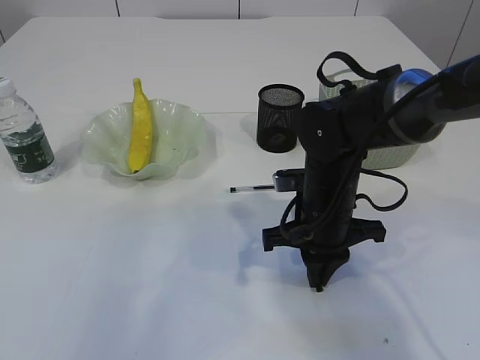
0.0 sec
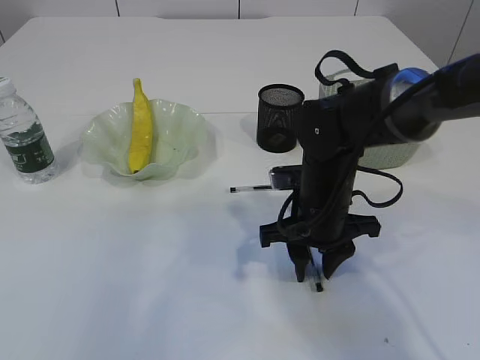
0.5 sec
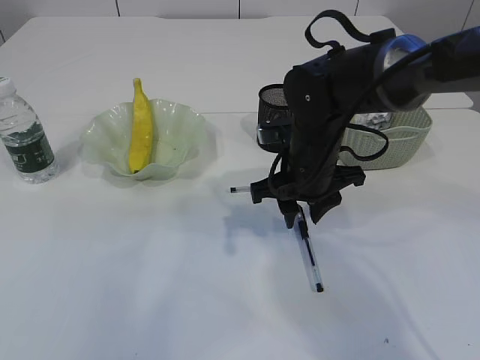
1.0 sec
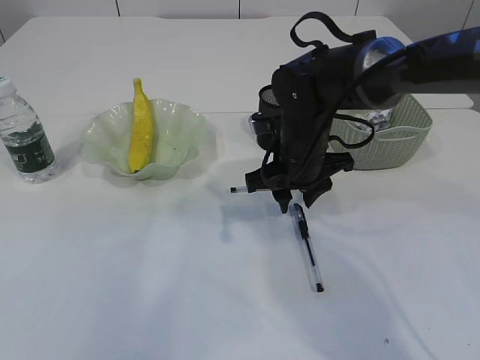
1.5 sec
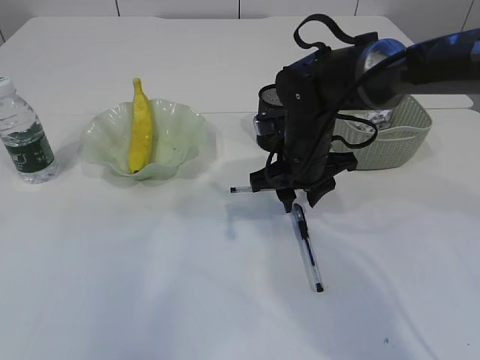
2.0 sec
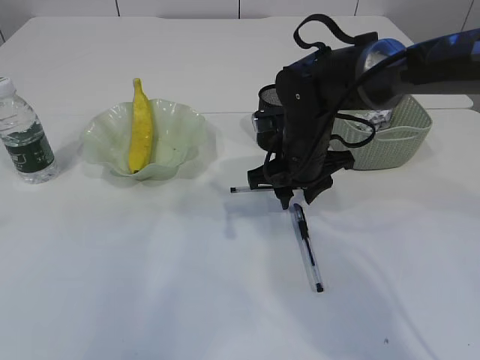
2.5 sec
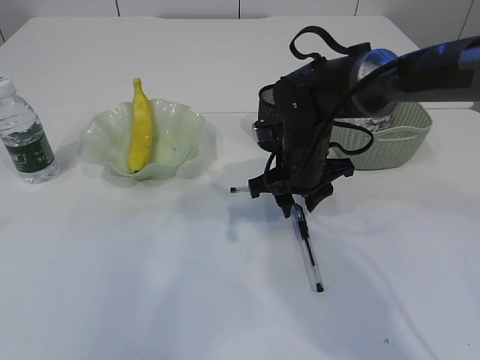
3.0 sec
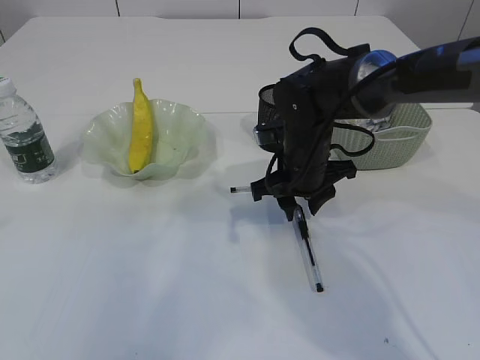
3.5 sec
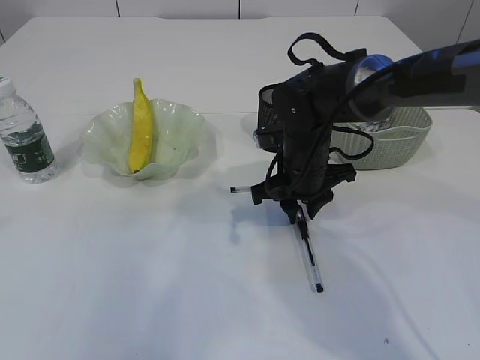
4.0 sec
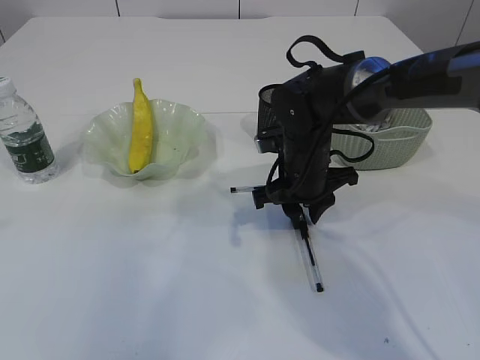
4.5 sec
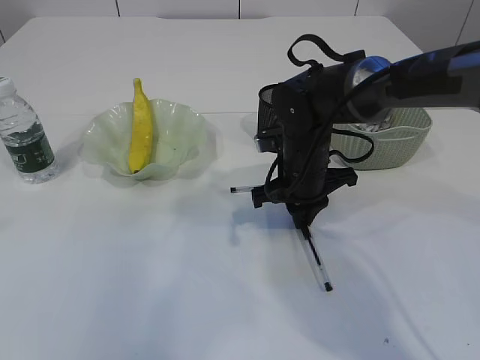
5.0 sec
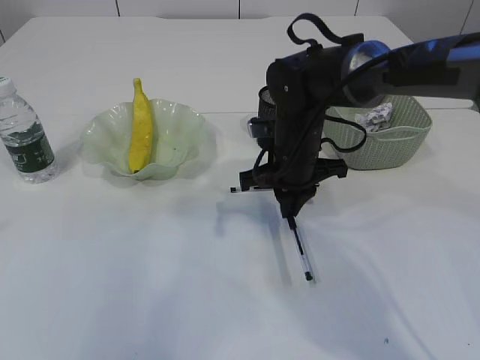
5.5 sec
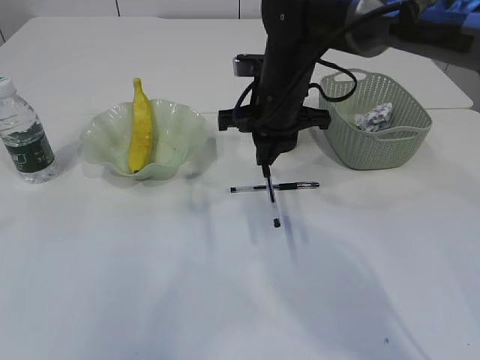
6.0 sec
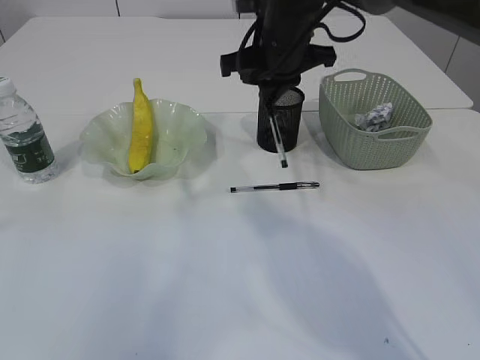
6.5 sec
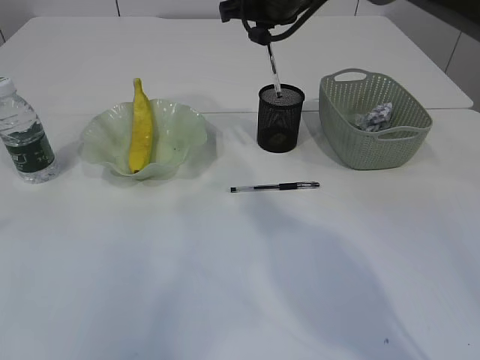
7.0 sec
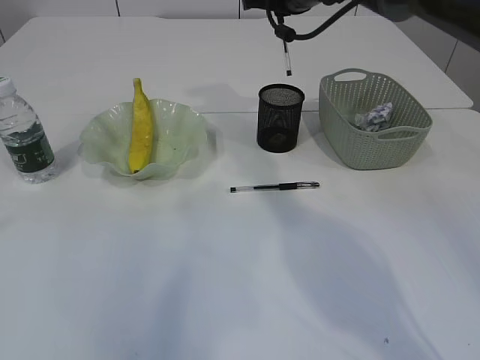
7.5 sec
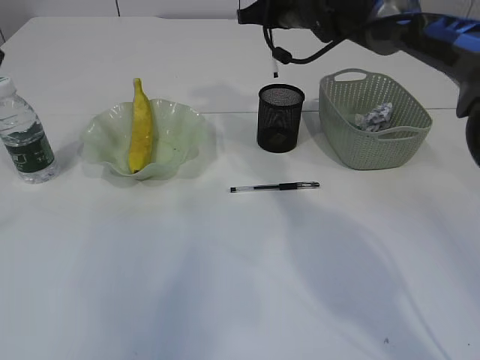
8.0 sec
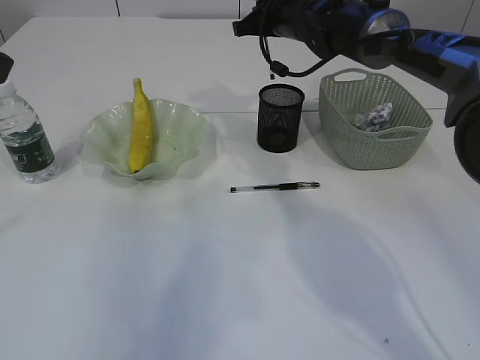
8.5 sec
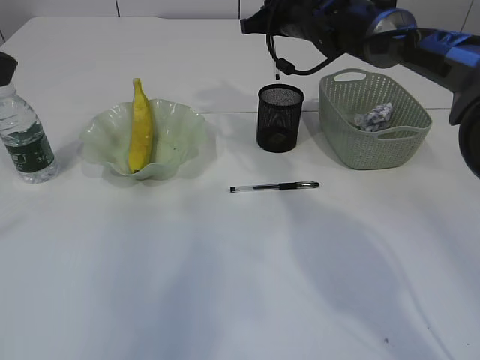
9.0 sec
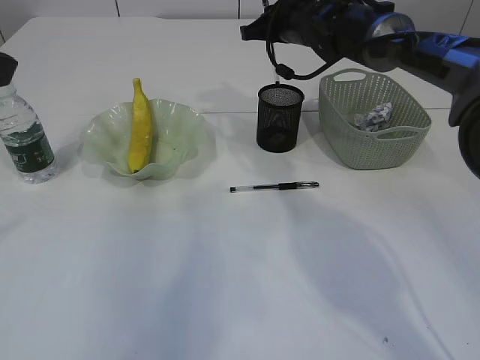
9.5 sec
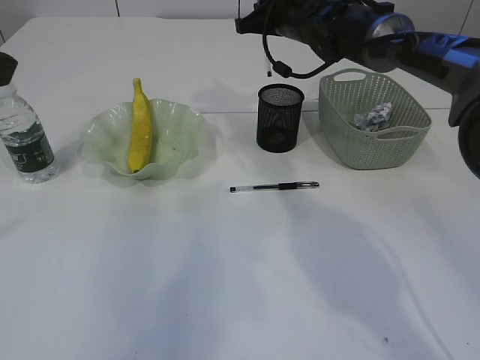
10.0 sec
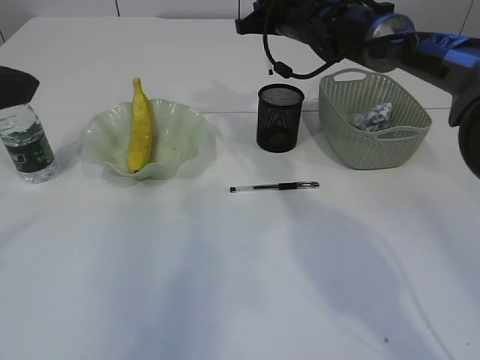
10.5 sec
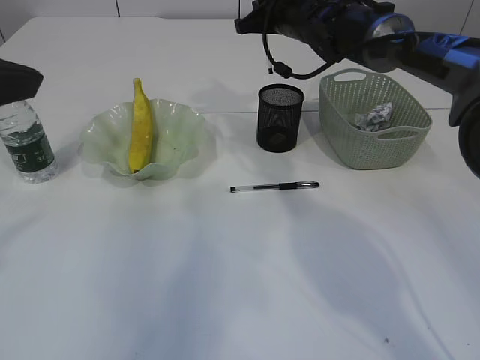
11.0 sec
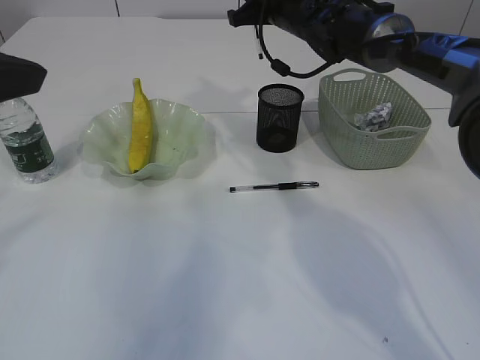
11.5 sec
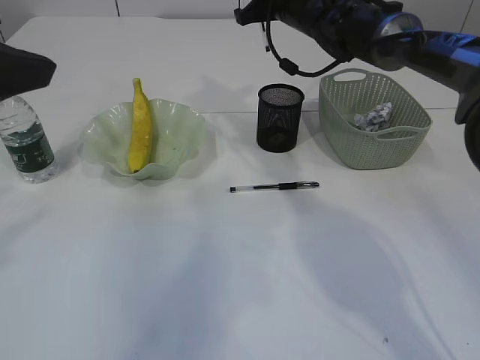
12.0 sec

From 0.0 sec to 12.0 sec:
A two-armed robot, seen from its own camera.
Step, from 0.0 sec to 6.0 sec: Pick up the pen with right arm.
From 0.0 sec to 2.0 sec: The right gripper travels forward by approximately 5 cm, and opens its fingers.
From 2.0 sec to 4.0 sec: There are only small adjustments of the grippers.
From 4.0 sec to 6.0 sec: The right gripper goes roughly 10 cm upward, and closes its fingers.
From 6.0 sec to 8.0 sec: The right gripper goes roughly 15 cm forward and upward.
From 8.0 sec to 10.0 sec: The grippers make only small movements.
From 10.0 sec to 12.0 sec: The grippers stay close to where they were, moving slightly.

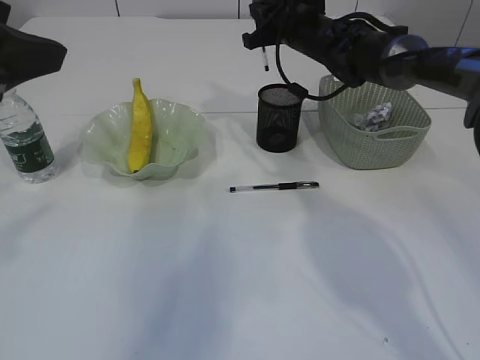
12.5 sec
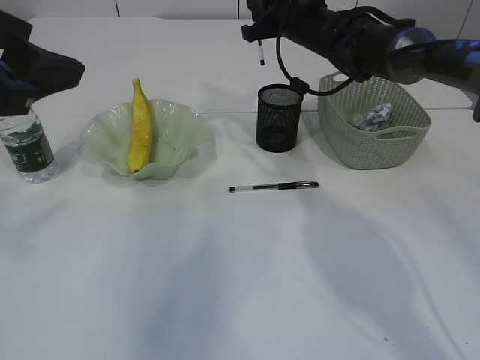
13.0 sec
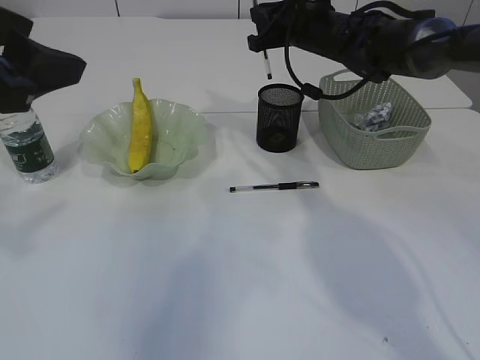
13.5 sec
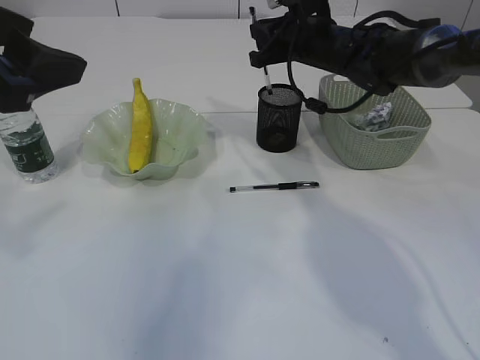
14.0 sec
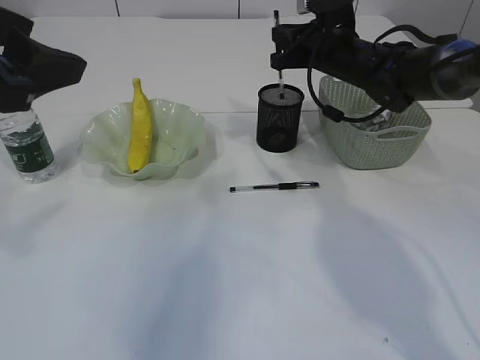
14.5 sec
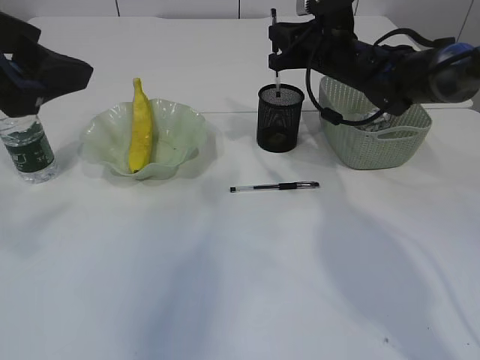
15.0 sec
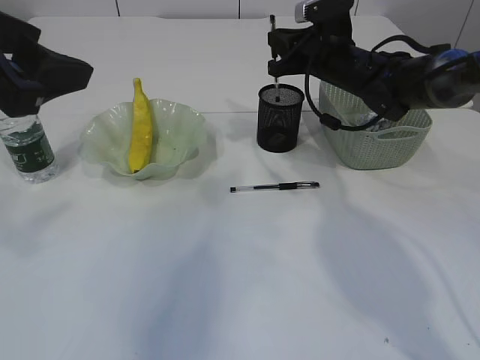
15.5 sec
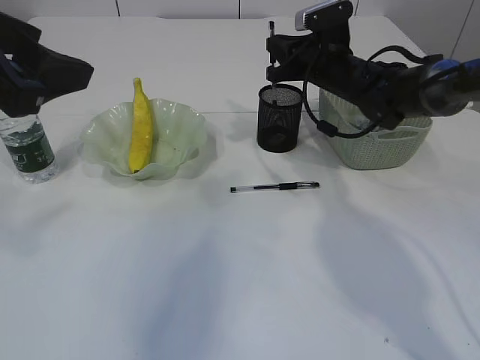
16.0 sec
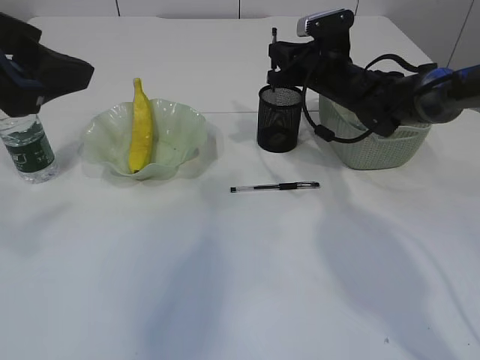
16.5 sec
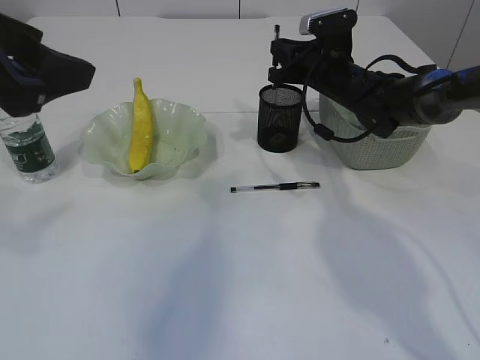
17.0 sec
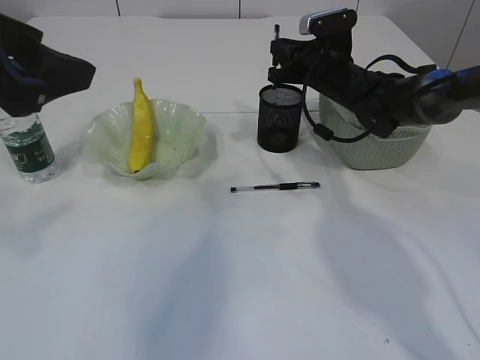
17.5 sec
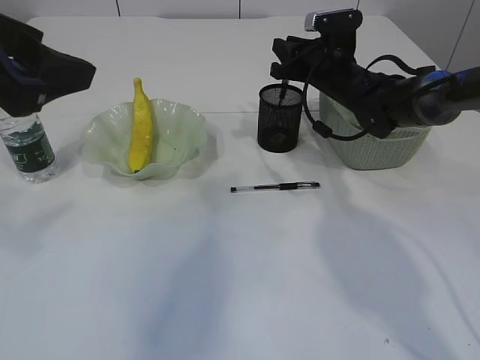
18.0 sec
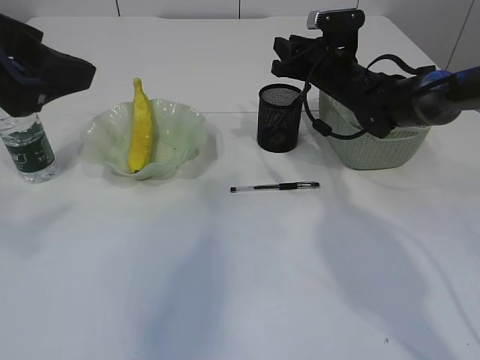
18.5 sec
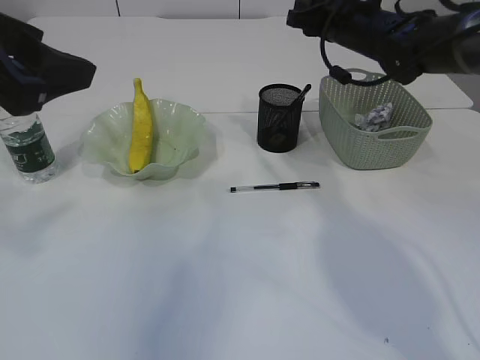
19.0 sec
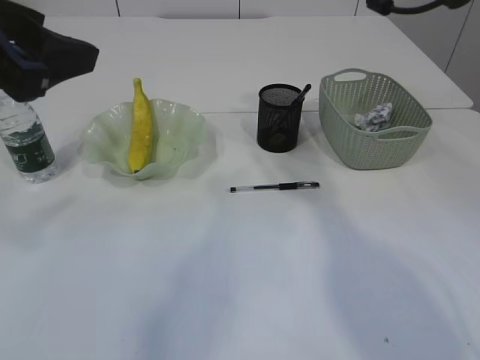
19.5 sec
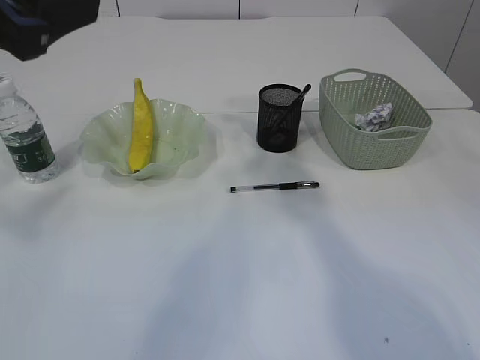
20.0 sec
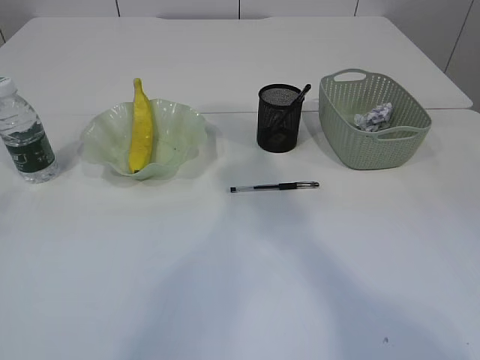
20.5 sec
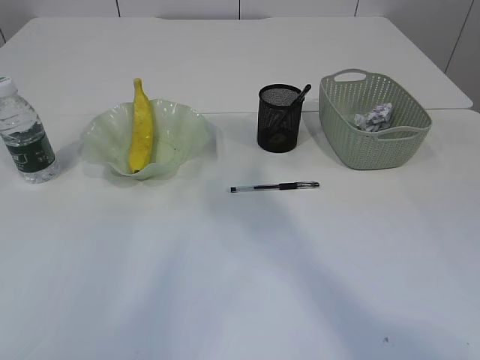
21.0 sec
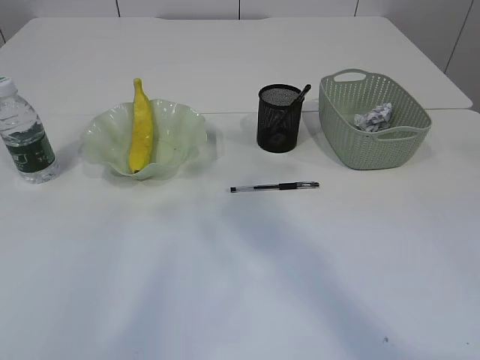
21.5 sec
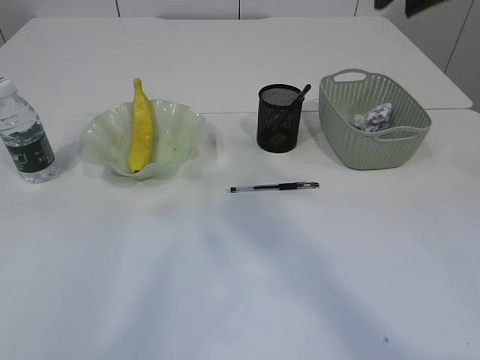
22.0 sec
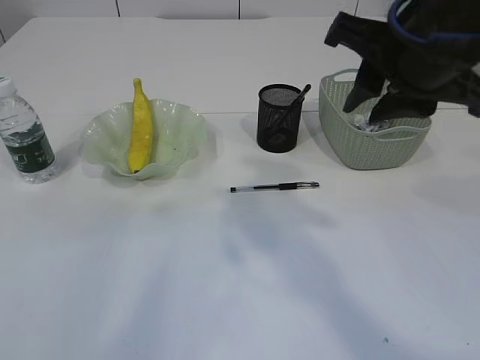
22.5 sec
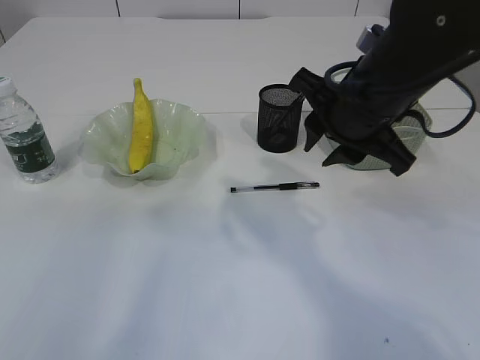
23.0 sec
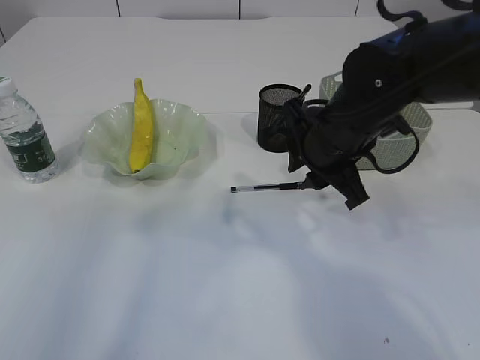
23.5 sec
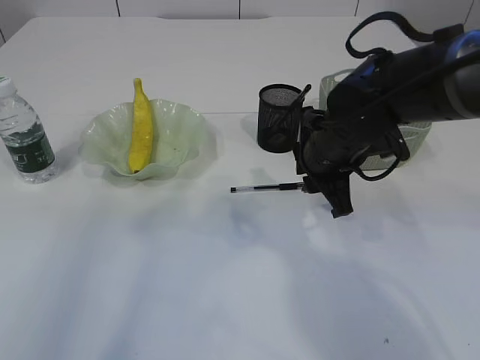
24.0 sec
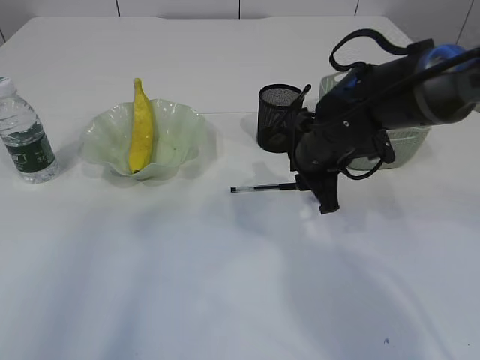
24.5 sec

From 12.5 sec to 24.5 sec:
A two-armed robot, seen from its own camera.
Step, from 12.5 sec to 18.5 sec: Place the pen into the pen holder.
From 12.5 sec to 14.5 sec: The right gripper shifts by about 5 cm.
From 14.5 sec to 16.5 sec: The grippers stay close to where they were, moving slightly.
From 16.5 sec to 18.5 sec: The right gripper opens up.
From 18.5 sec to 20.5 sec: The right gripper moves upward and backward, about 30 cm. Meanwhile the left gripper moves upward, some 5 cm.
From 20.5 sec to 22.5 sec: The right gripper is displaced backward and downward by about 15 cm.
From 22.5 sec to 24.5 sec: The right gripper travels downward and forward by approximately 20 cm.

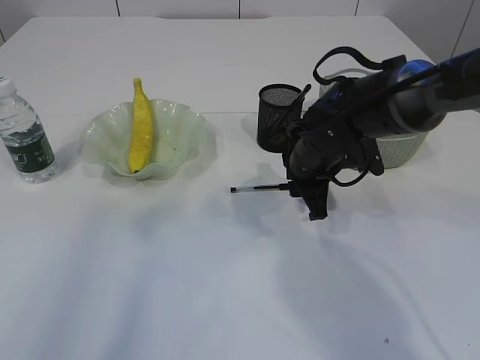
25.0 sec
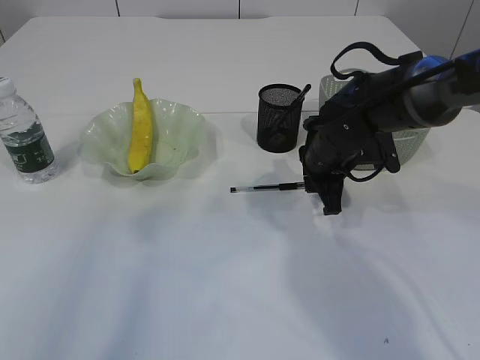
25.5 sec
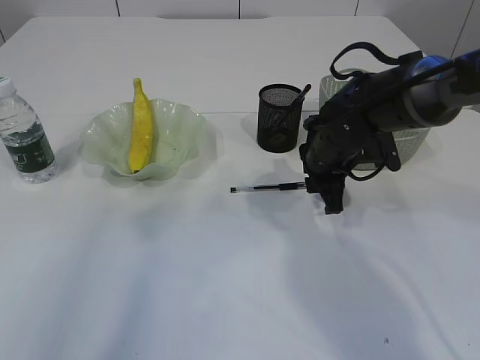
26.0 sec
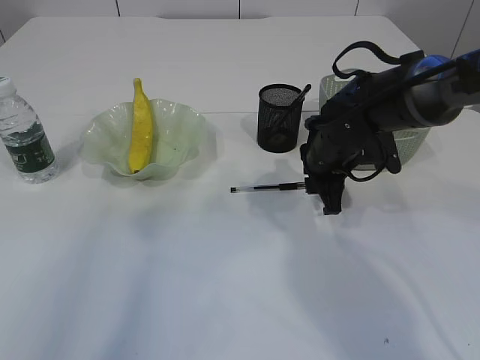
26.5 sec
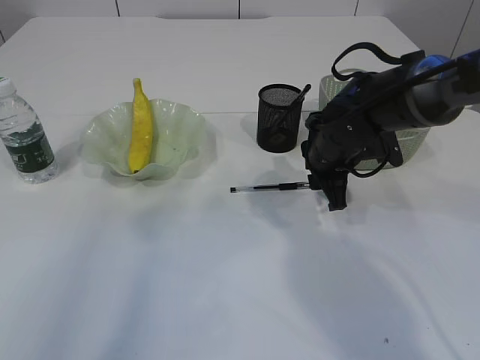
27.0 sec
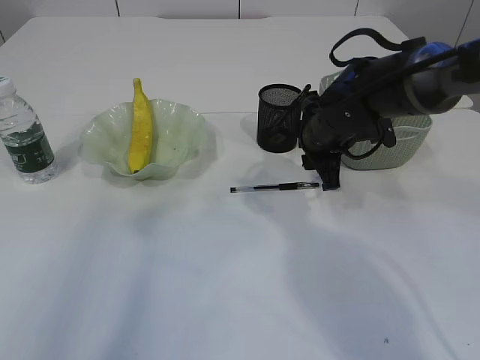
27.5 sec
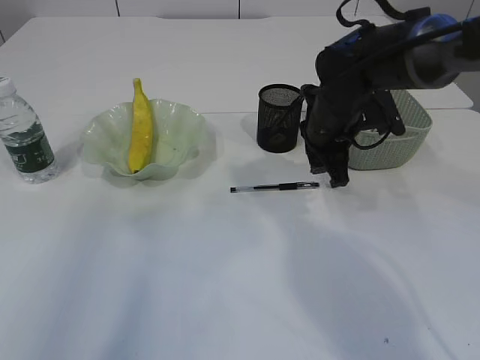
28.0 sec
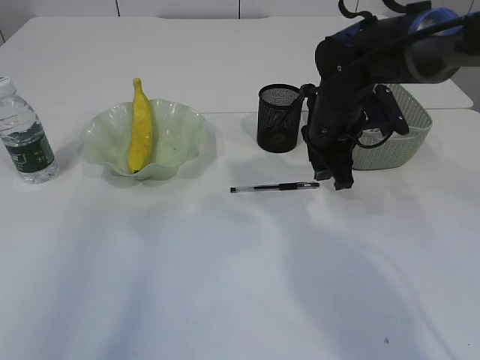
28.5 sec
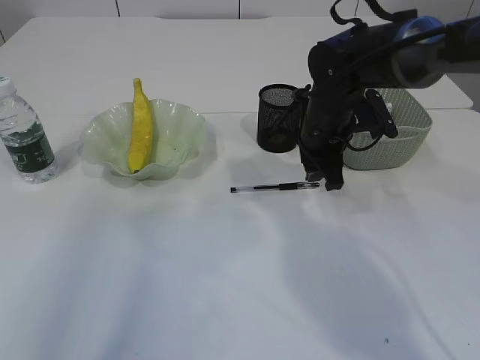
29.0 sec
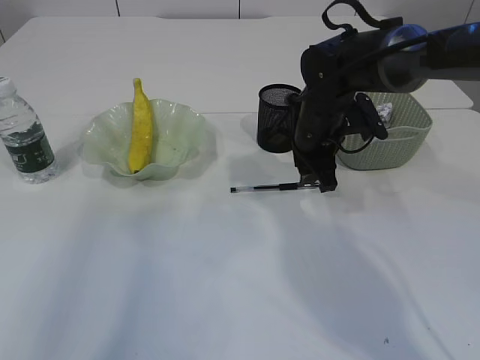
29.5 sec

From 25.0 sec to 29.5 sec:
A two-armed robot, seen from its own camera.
From 25.0 sec to 29.5 sec: The grippers make only small movements.
